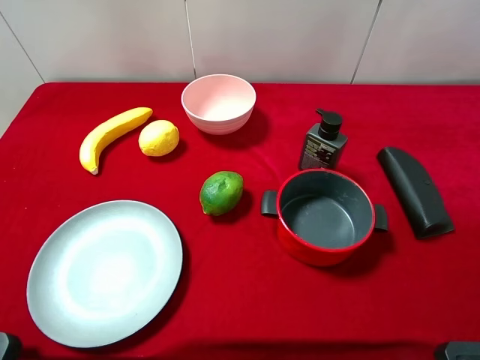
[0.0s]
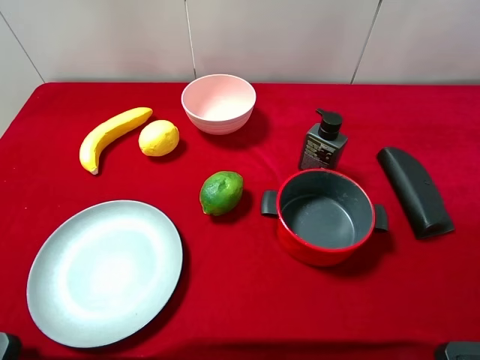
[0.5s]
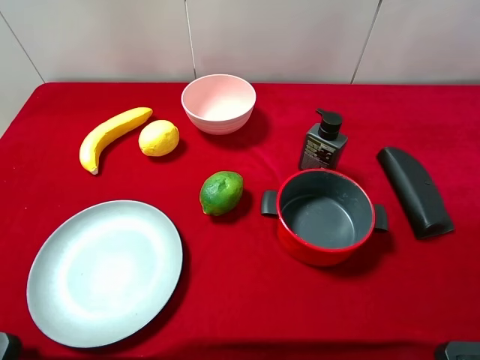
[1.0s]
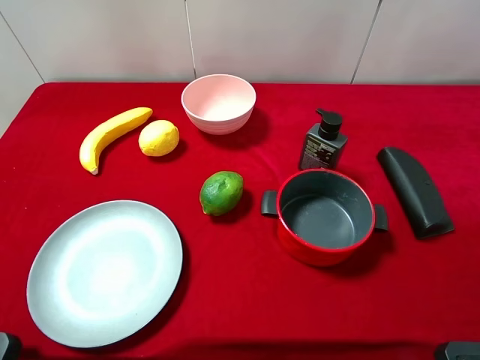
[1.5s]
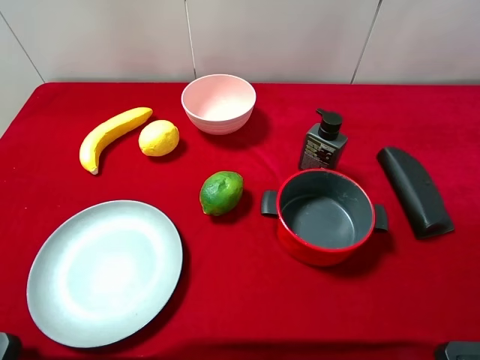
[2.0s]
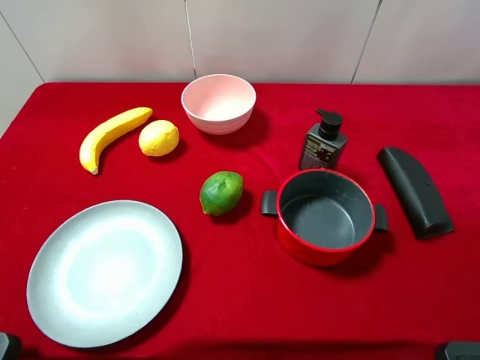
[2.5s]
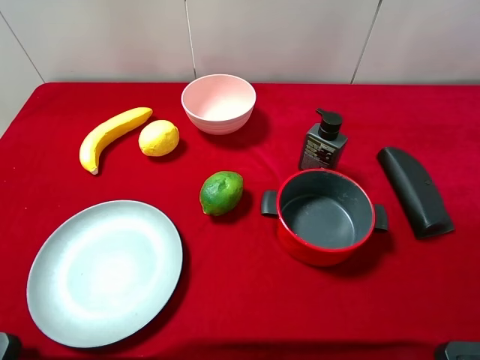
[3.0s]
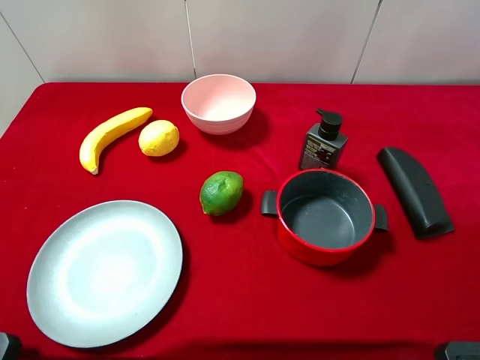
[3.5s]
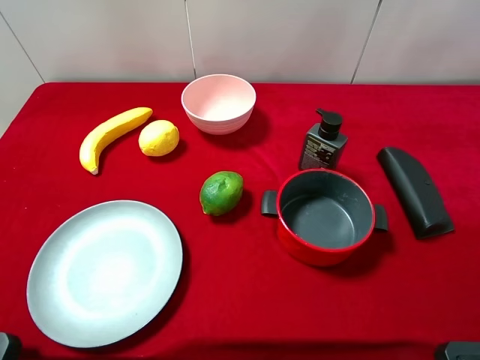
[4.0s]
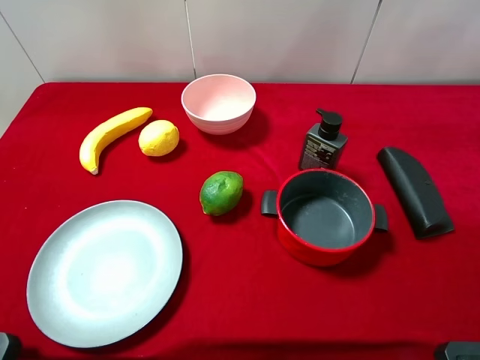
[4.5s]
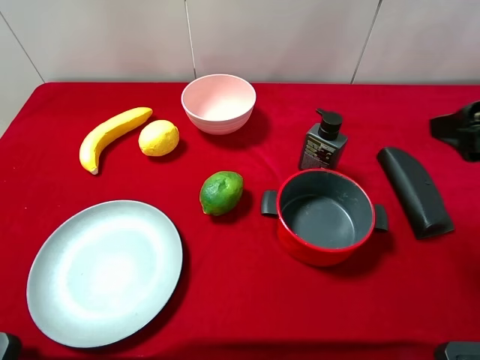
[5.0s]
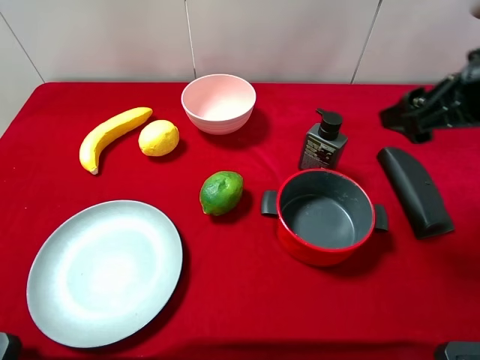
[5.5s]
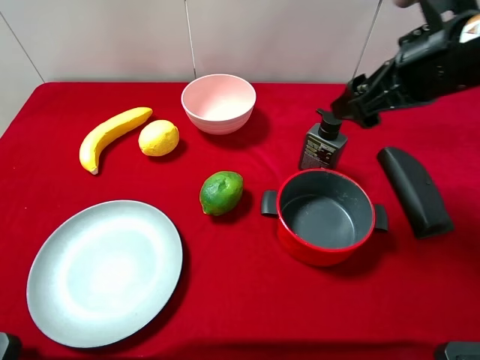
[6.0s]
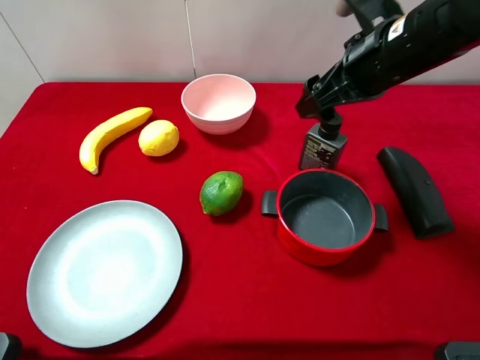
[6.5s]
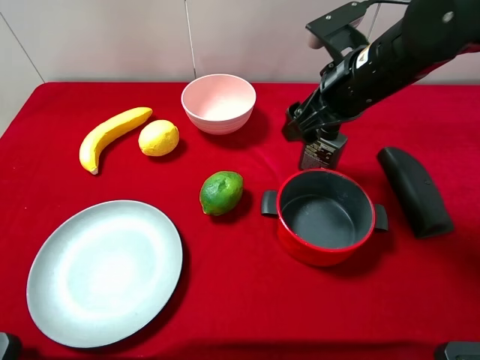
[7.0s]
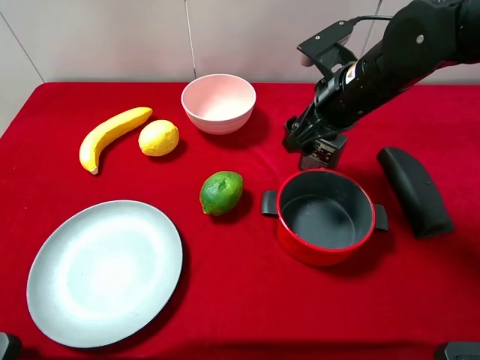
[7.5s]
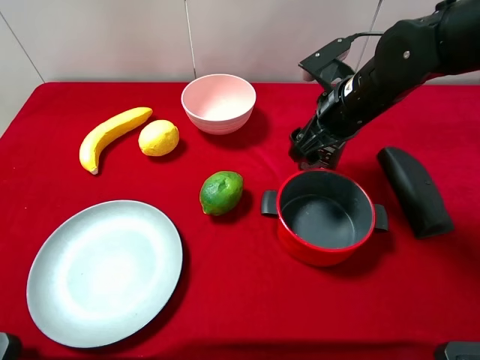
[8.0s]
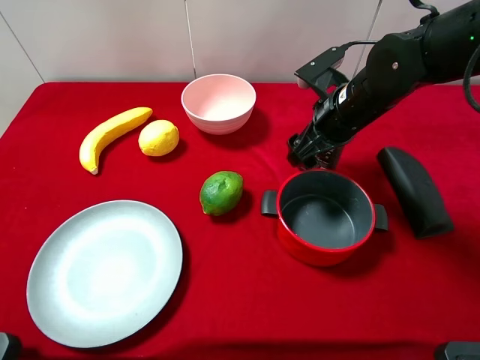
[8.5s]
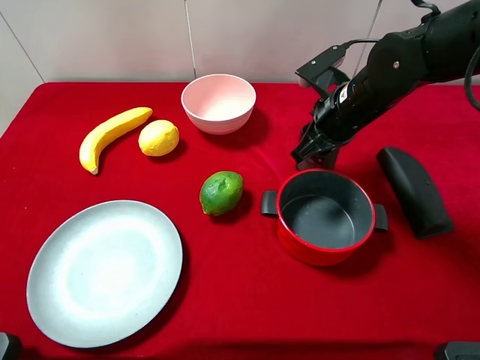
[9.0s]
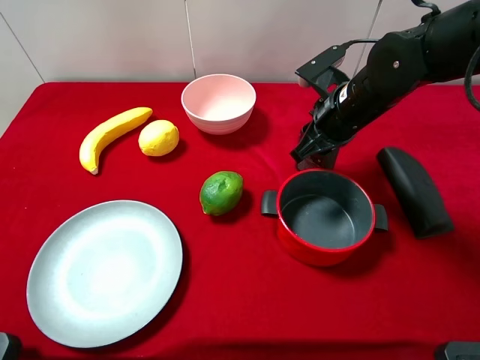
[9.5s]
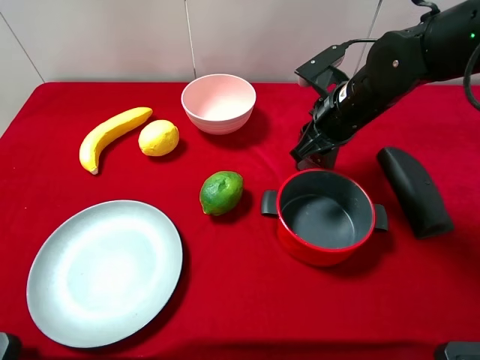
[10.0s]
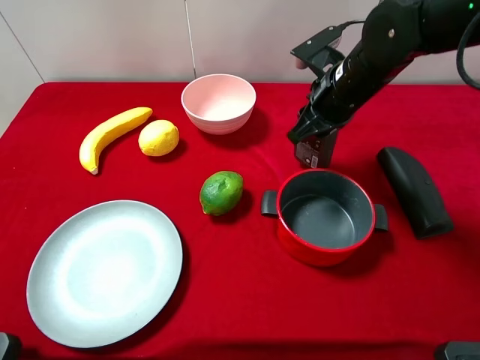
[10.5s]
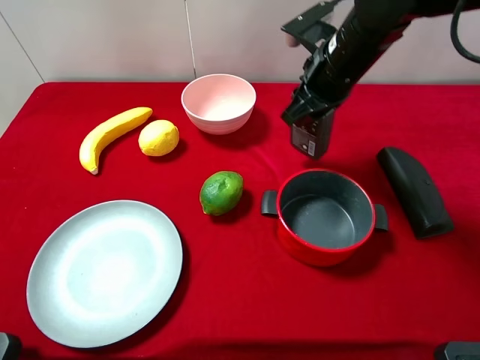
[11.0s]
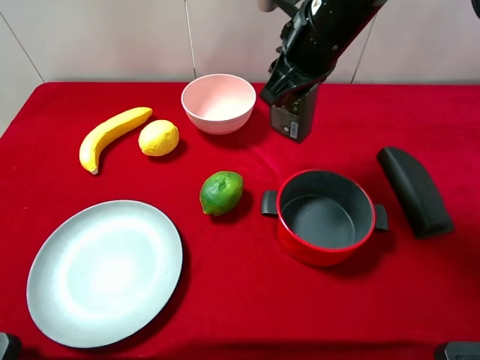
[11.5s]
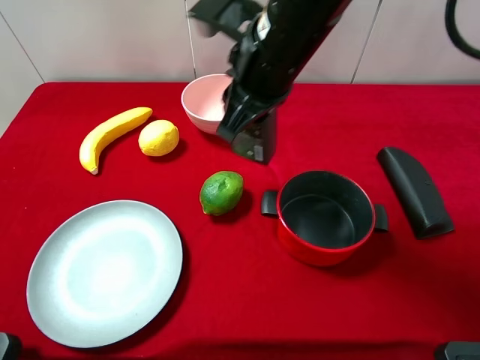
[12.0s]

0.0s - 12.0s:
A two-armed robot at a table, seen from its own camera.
Task of the whole recording: pick up an item with a gripper and place it in a random container on the desktop.
0.0s - 2.0s: Both grippers stay put.
4.0s - 6.0s: The right gripper goes some 20 cm forward and to the left.
6.0s - 8.0s: The right gripper travels downward and forward by roughly 10 cm.
8.0s - 10.0s: The right gripper closes its fingers.
10.0s - 12.0s: The right gripper goes some 15 cm to the left, upward and backward.

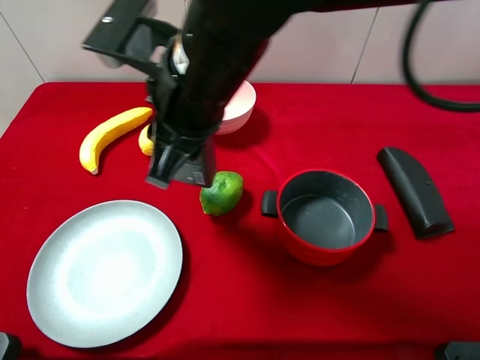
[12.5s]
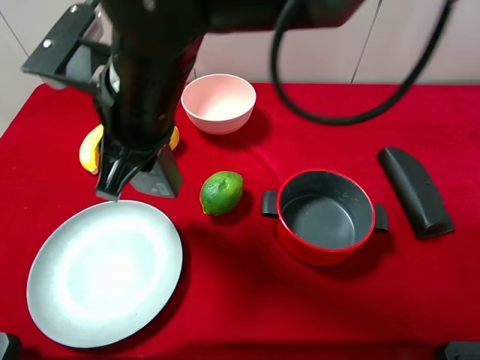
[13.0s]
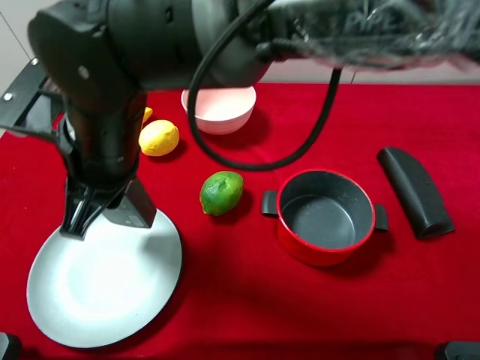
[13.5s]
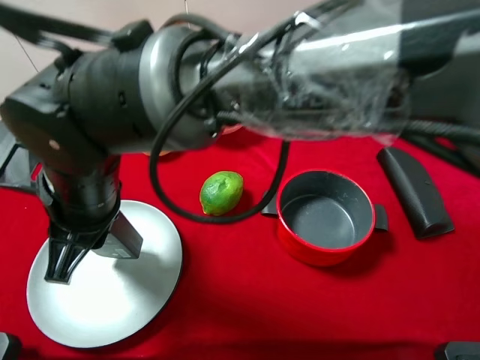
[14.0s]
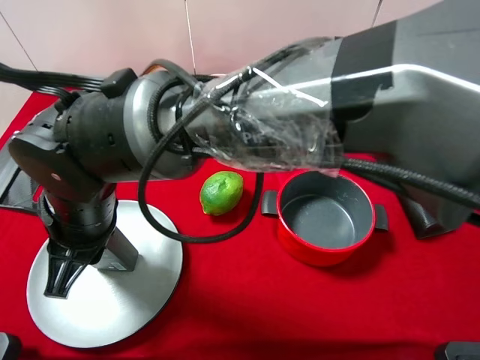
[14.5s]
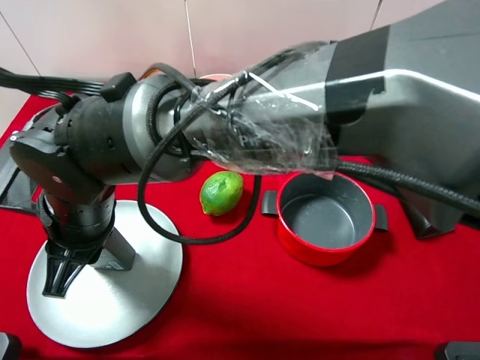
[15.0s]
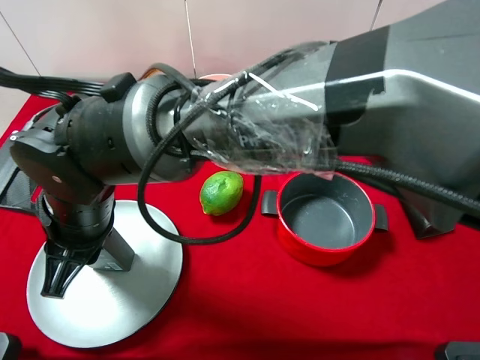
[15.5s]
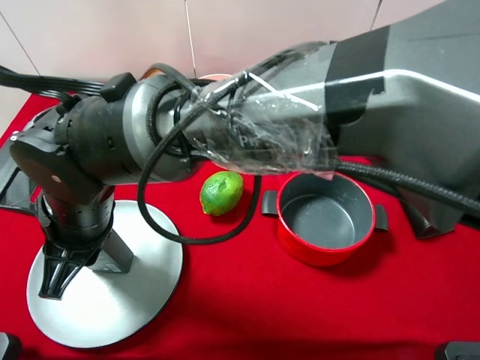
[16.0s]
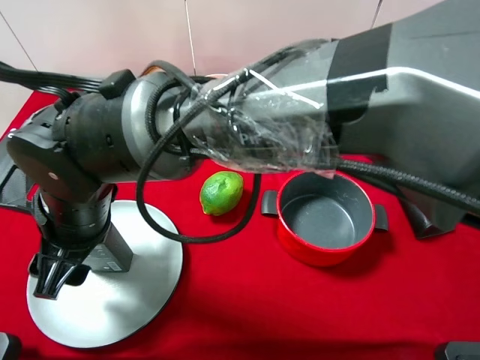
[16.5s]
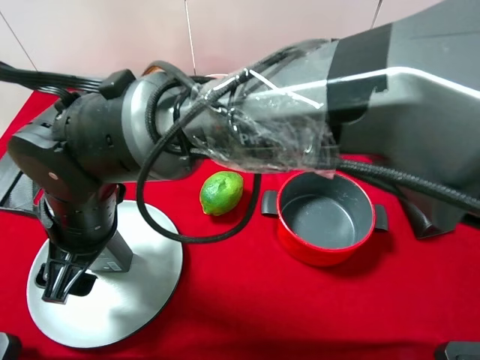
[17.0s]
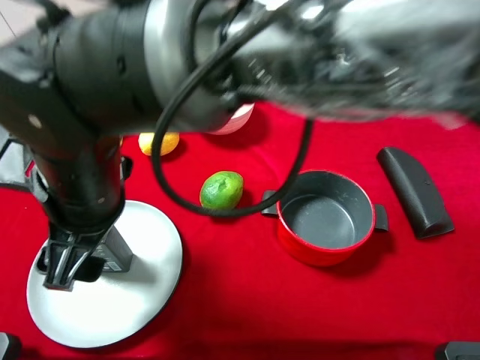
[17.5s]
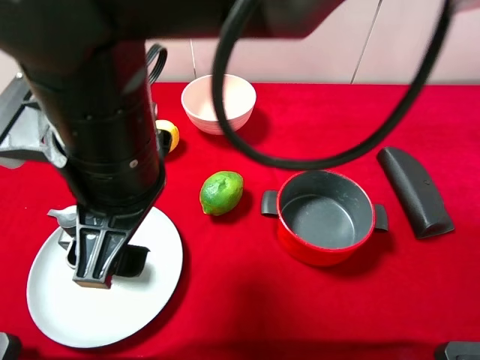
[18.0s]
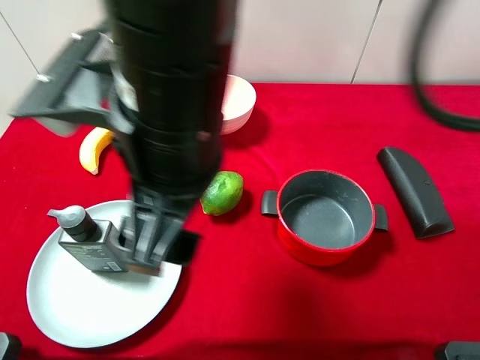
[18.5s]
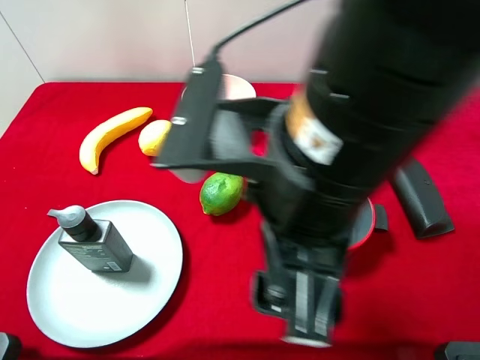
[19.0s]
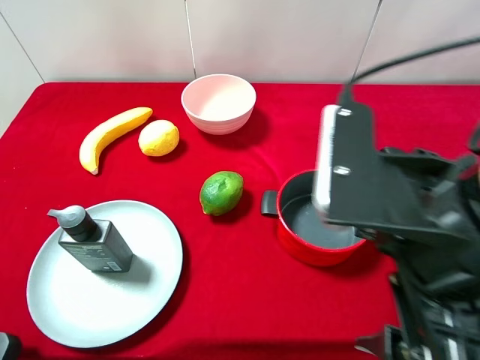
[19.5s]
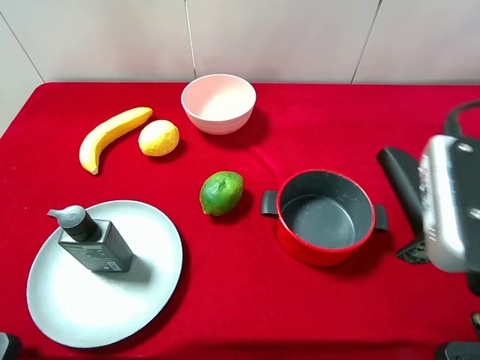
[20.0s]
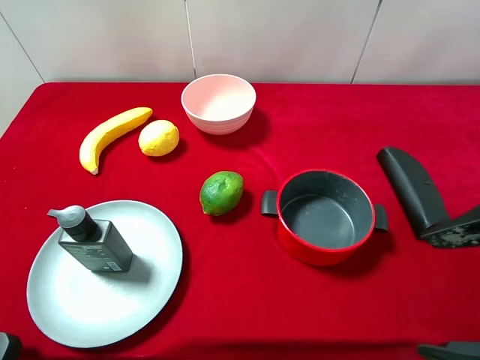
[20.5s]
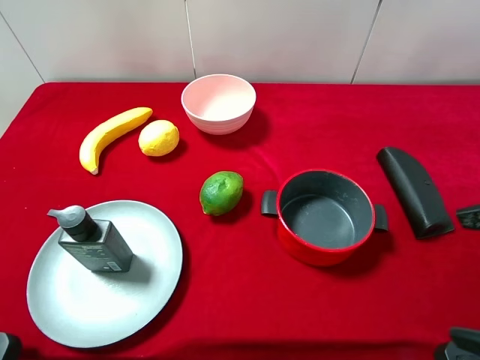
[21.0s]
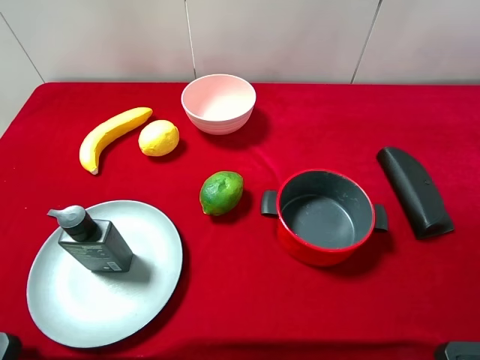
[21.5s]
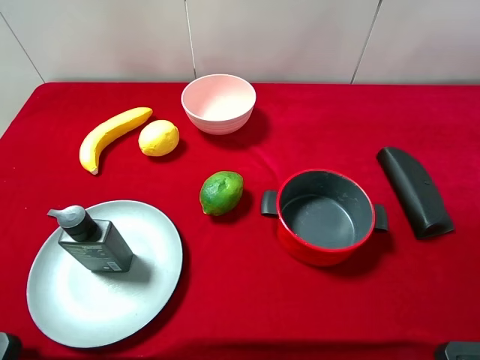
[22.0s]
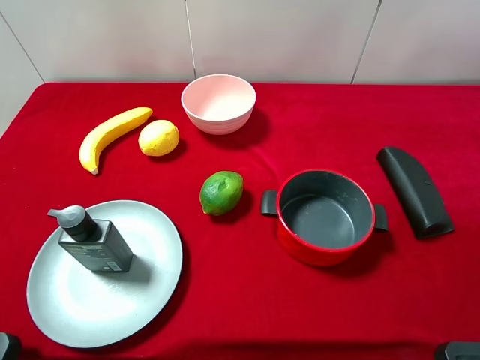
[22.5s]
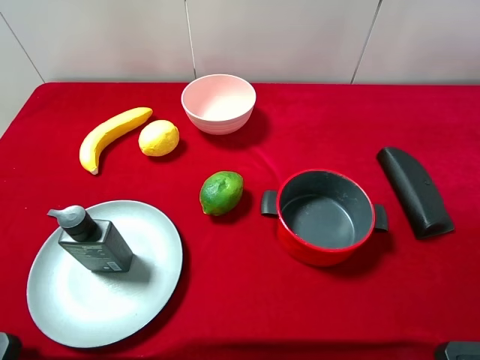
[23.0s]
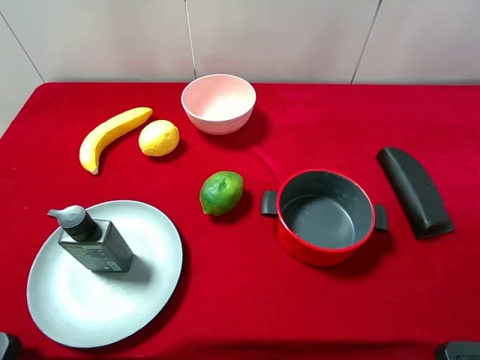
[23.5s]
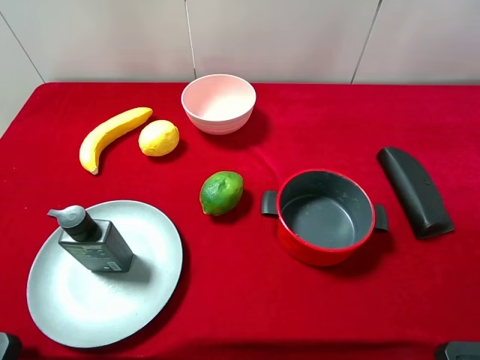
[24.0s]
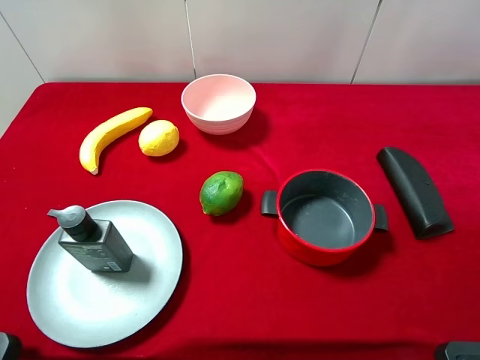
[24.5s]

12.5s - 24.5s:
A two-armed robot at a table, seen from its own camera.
Task of the whole recording: pick up an item with a gripper and place it in a random container on the desktop.
12.5s - 14.5s: The right gripper heads to the left, downward and backward, covering approximately 15 cm.
14.5s - 16.5s: The right gripper opens up.
16.5s - 18.5s: The right gripper moves upward and to the right, about 20 cm.
18.5s - 20.5s: The right gripper goes some 25 cm to the right.
